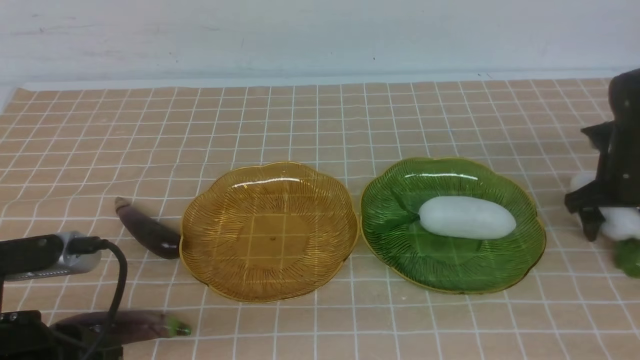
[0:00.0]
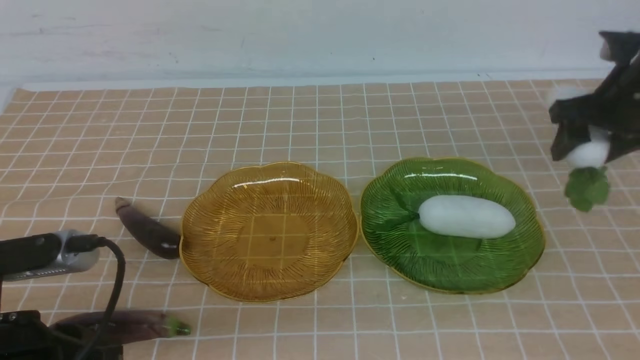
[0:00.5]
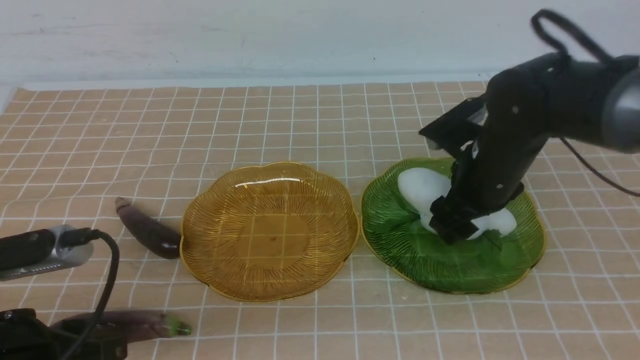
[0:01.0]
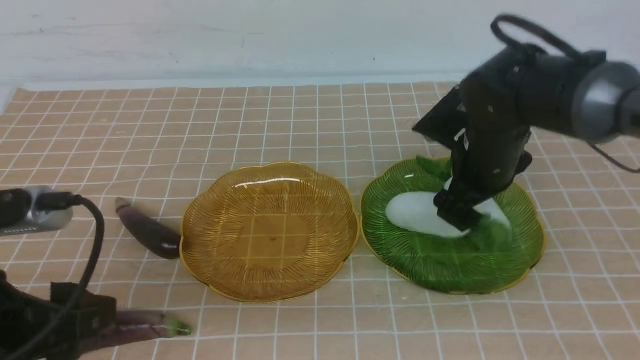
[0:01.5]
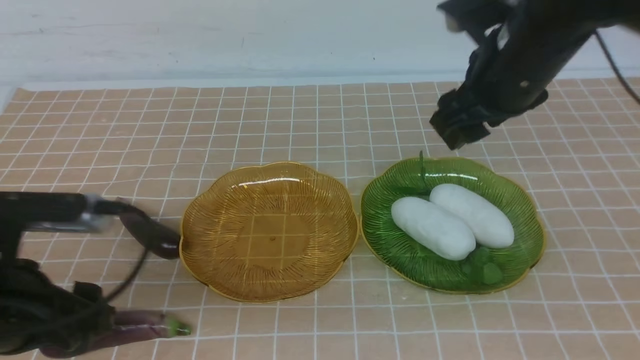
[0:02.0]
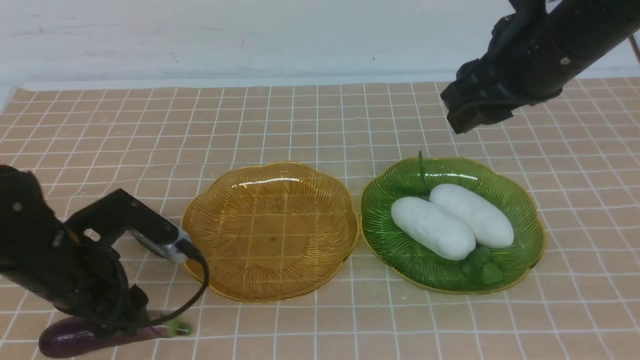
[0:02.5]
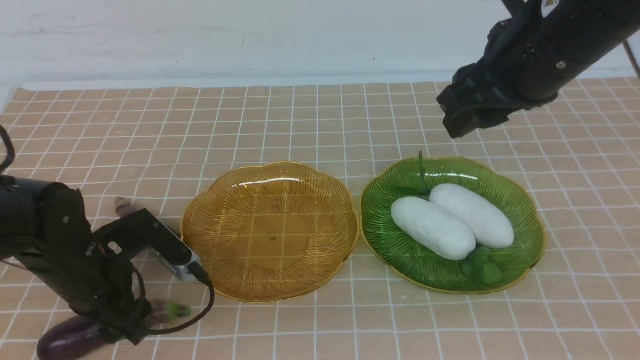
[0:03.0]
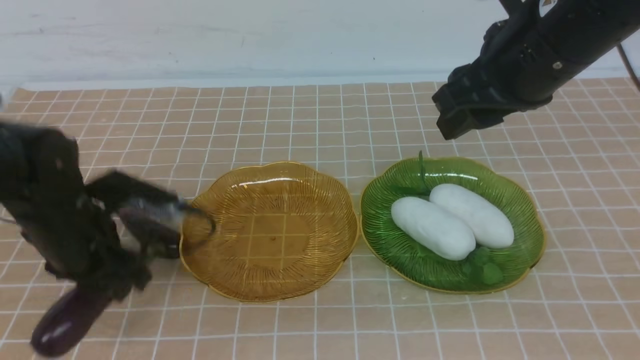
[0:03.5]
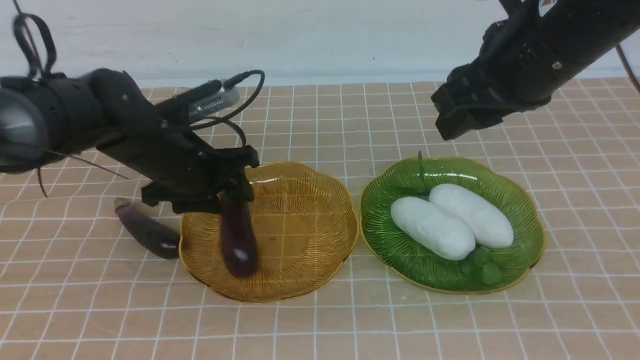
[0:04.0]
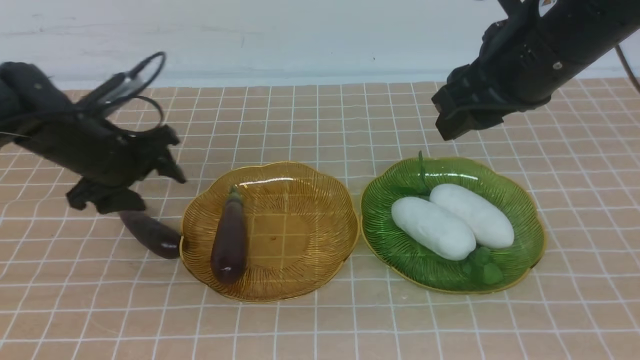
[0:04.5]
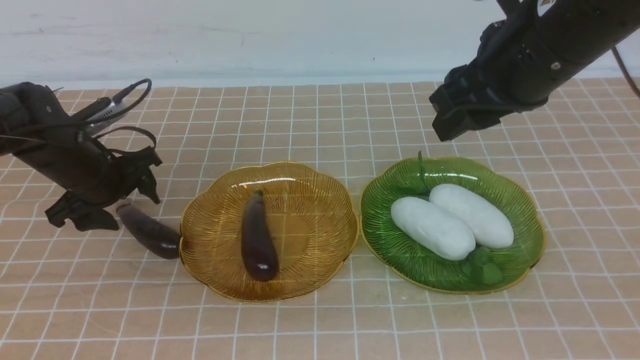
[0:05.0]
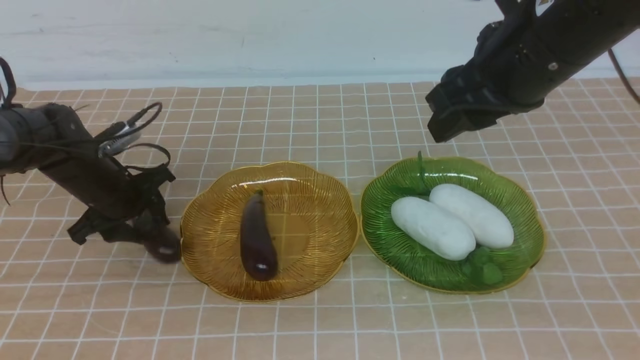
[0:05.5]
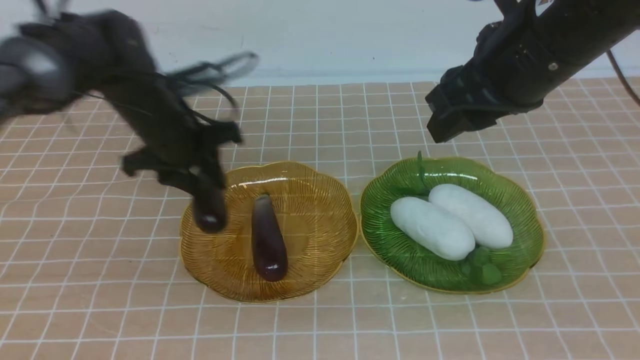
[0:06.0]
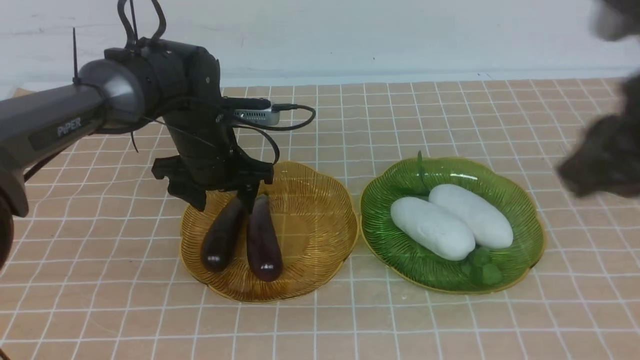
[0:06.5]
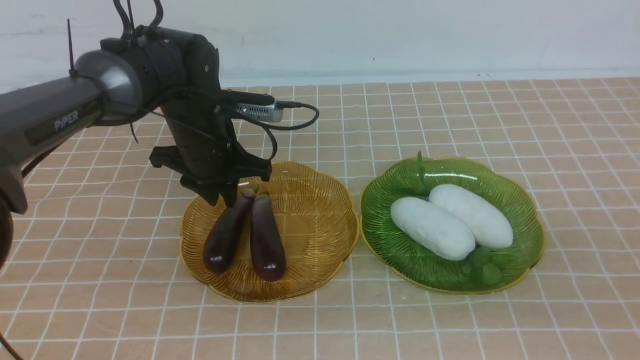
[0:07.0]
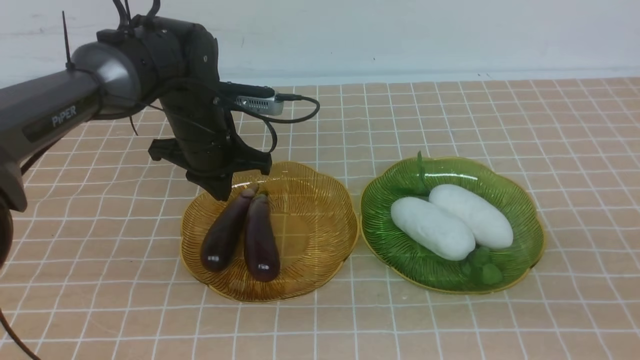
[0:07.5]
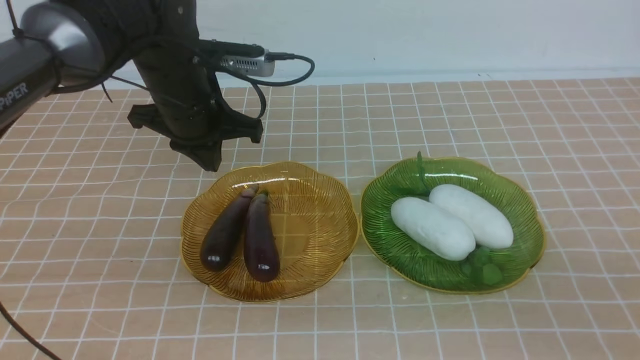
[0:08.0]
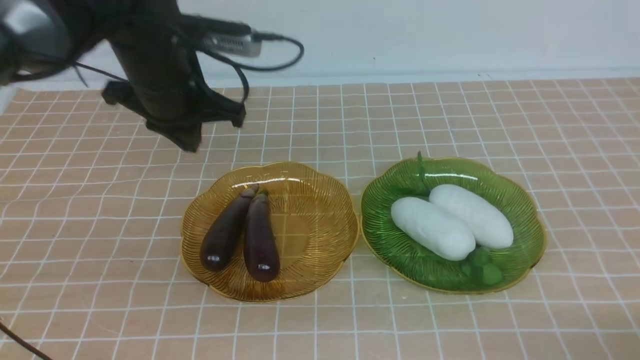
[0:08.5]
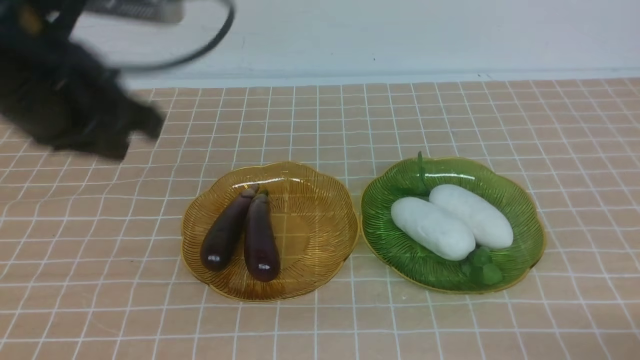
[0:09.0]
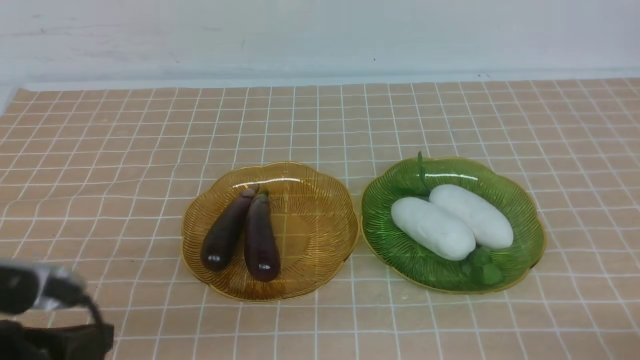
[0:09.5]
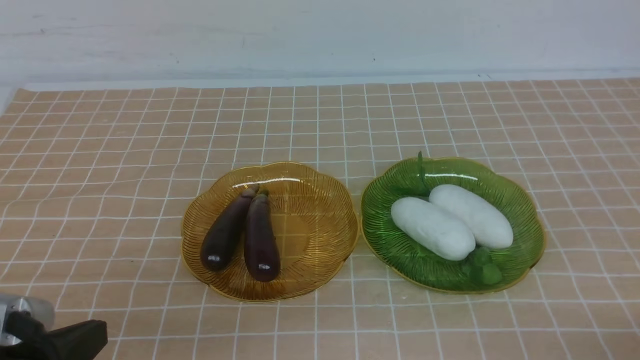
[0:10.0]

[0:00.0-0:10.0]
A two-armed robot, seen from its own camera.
Step, 0:02.0 to 0:04.5: use the left arm to grab an eggplant and put it into the left plate.
Step, 0:05.0 to 0:06.5: use the left arm to grab an eggplant and put it into the left plate.
0:00.0 to 0:02.0: The right gripper goes some 25 cm to the left and upward, while the left gripper opens its fingers.
0:02.0 to 0:04.0: The right gripper changes place by roughly 5 cm; the left gripper shifts some 20 cm forward.
0:04.0 to 0:06.0: The left gripper shifts some 5 cm forward, and moves approximately 10 cm to the left and comes back.
0:06.0 to 0:08.0: The right gripper is displaced backward, downward and to the right by approximately 30 cm, and closes up, while the left gripper goes about 5 cm upward, and closes up.
0:08.0 to 0:10.0: The right gripper moves downward, some 5 cm, while the left gripper heads backward, covering about 30 cm.

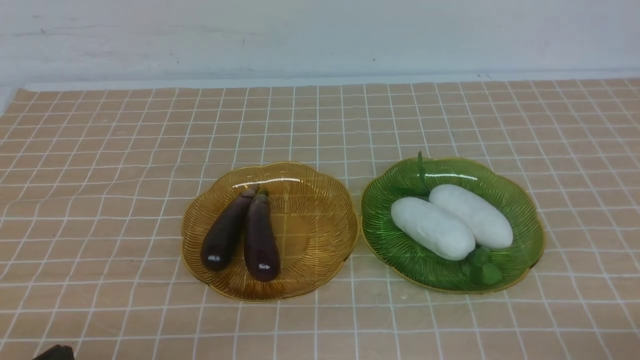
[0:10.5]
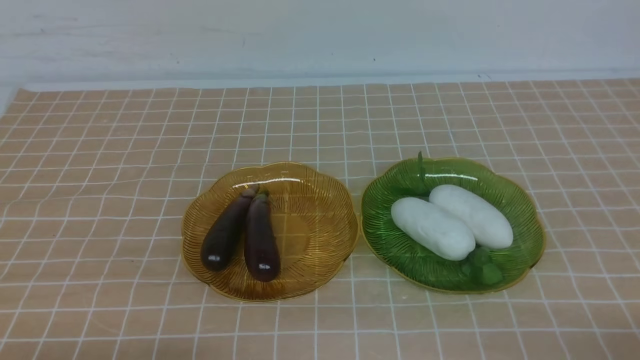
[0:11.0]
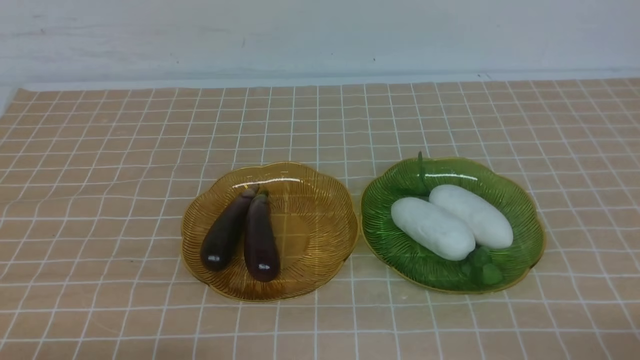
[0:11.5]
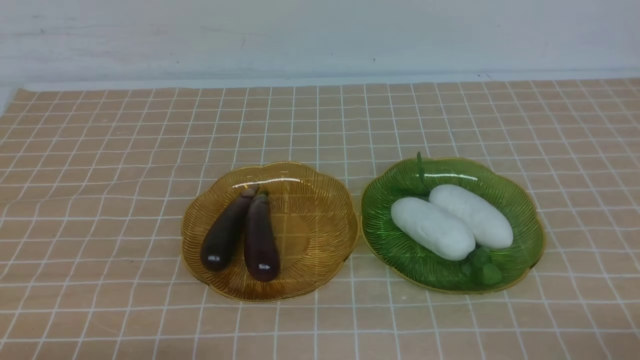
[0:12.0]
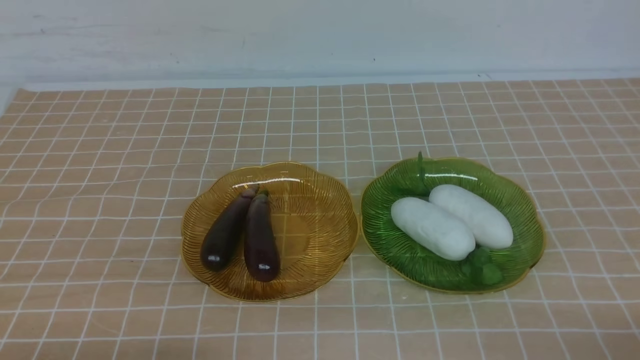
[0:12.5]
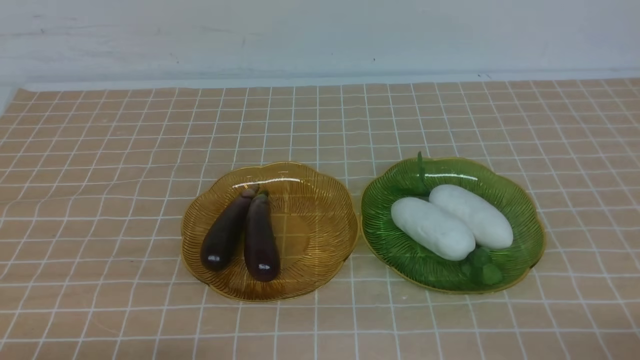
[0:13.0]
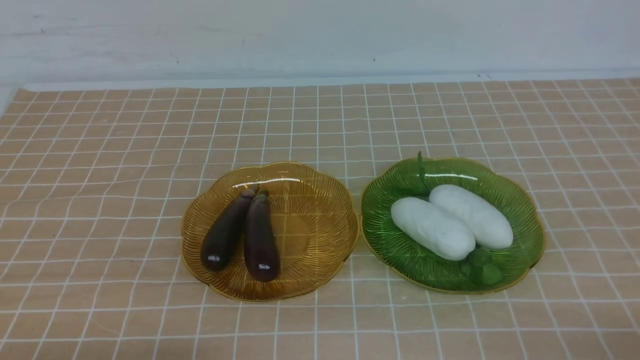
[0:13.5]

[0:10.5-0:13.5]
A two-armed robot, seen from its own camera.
0:12.0 to 0:13.5: Both grippers stay about where they are.
